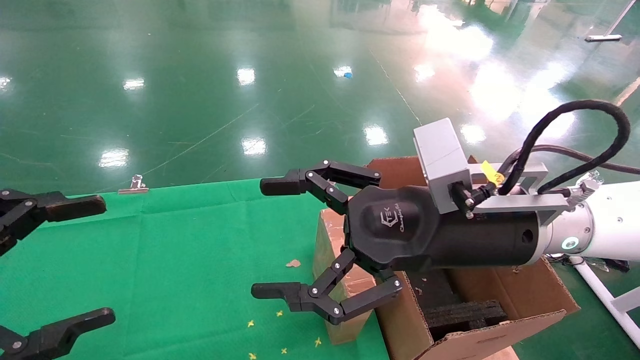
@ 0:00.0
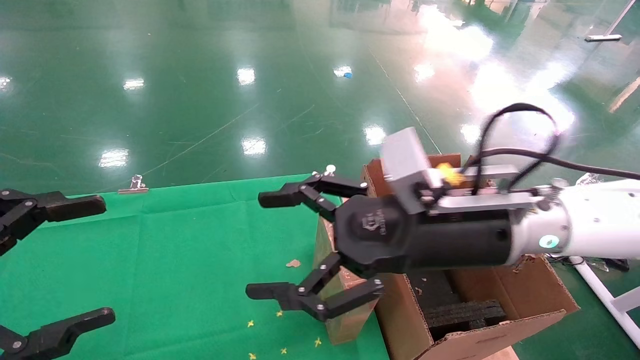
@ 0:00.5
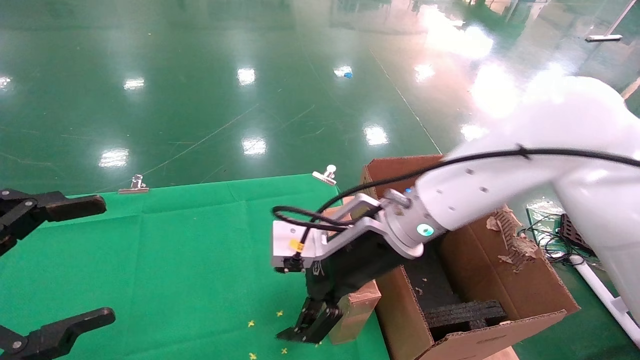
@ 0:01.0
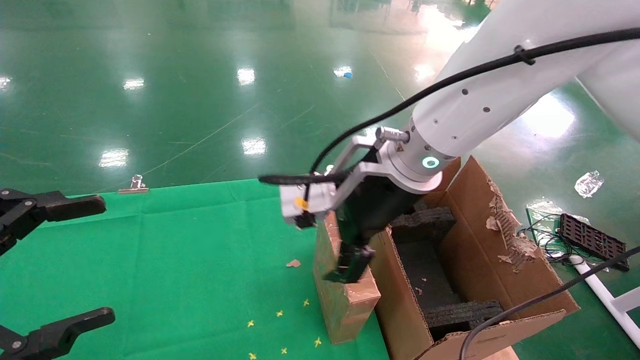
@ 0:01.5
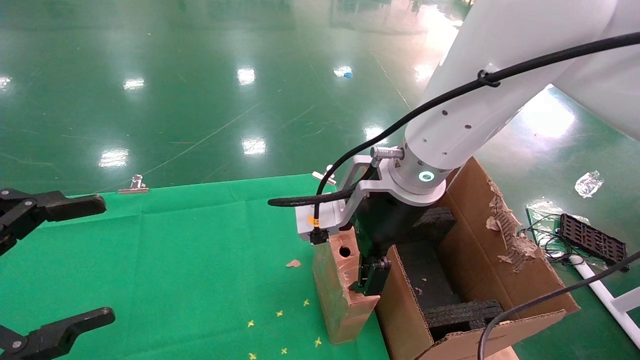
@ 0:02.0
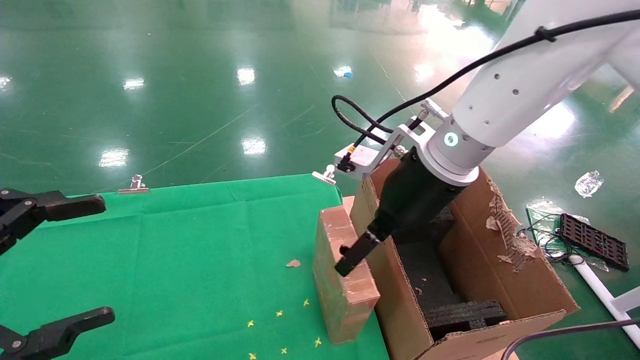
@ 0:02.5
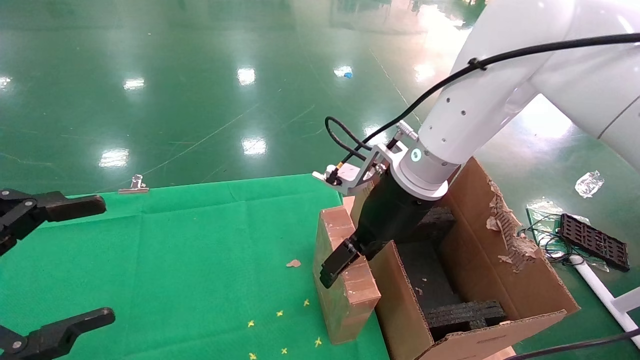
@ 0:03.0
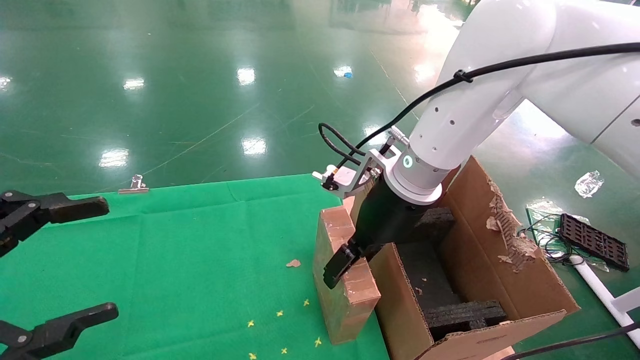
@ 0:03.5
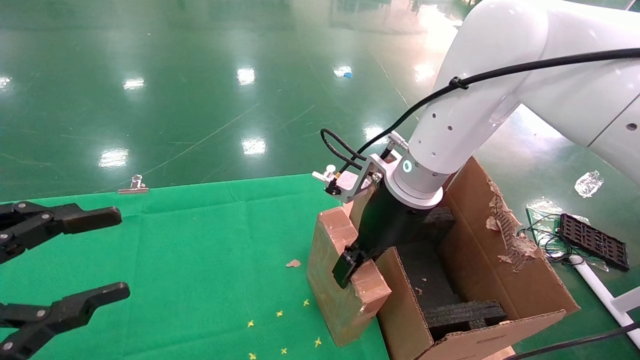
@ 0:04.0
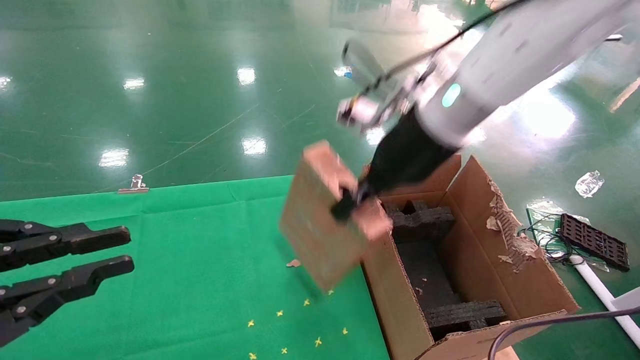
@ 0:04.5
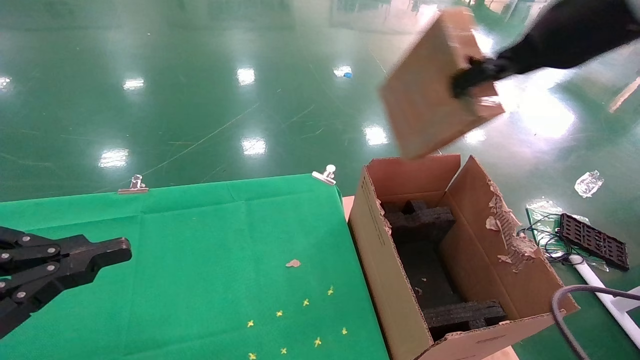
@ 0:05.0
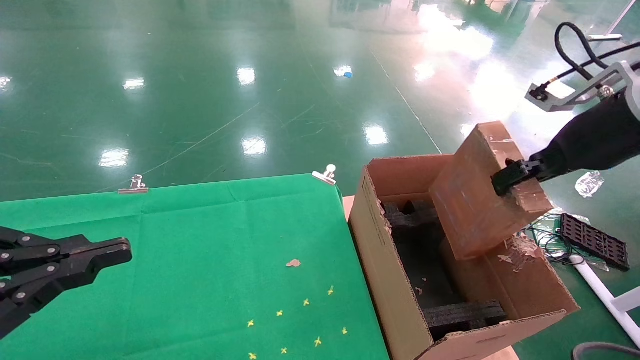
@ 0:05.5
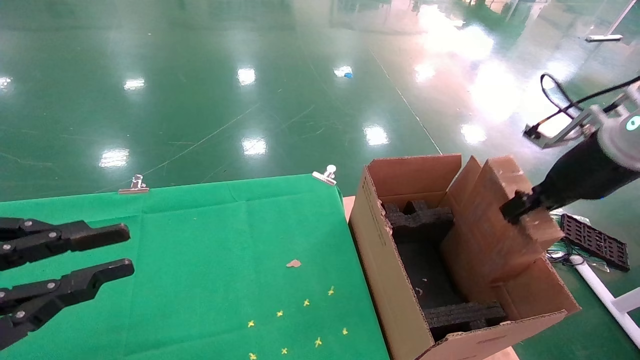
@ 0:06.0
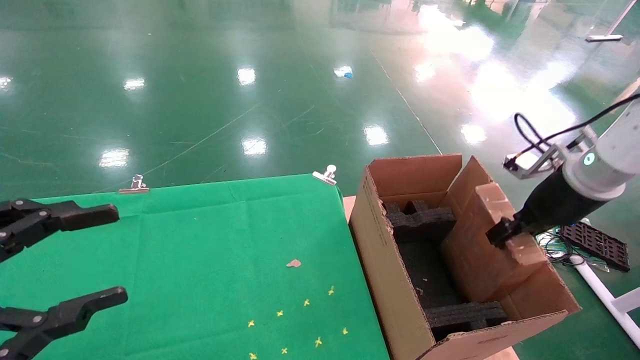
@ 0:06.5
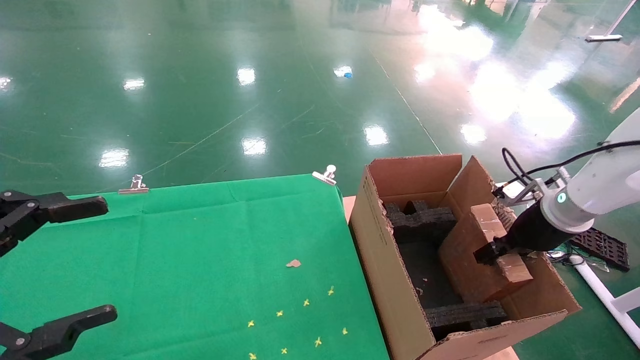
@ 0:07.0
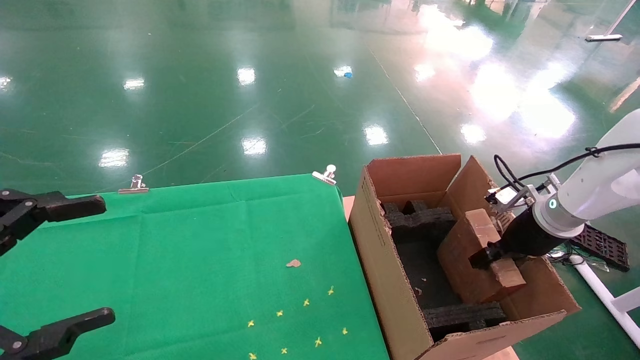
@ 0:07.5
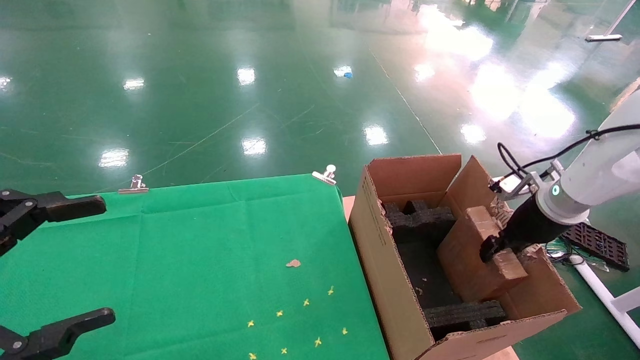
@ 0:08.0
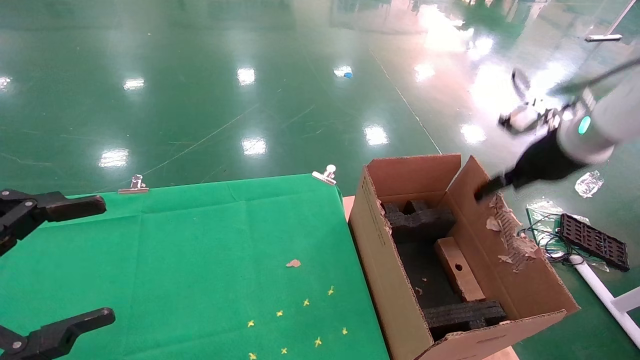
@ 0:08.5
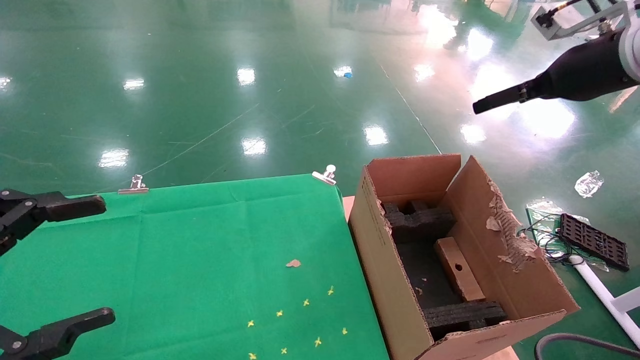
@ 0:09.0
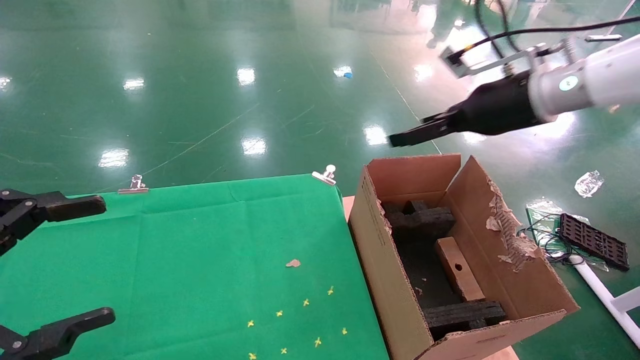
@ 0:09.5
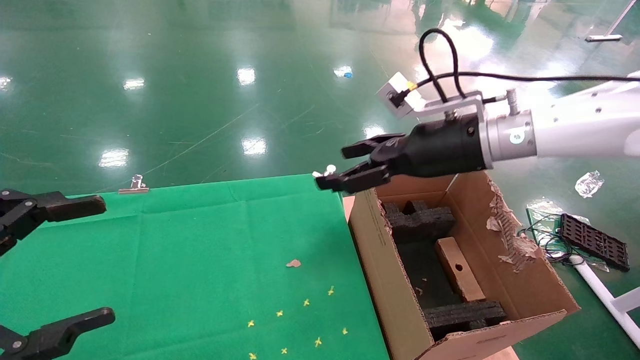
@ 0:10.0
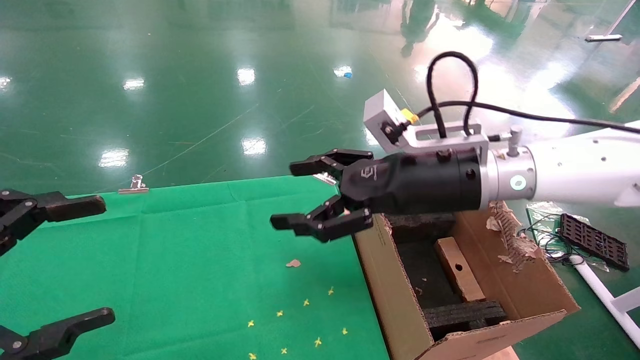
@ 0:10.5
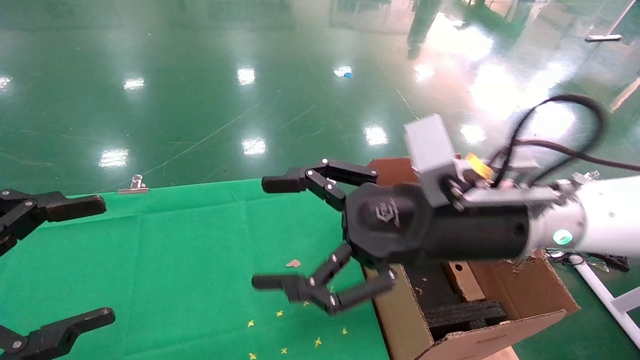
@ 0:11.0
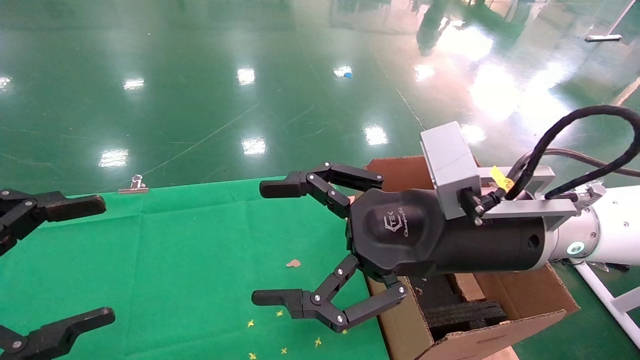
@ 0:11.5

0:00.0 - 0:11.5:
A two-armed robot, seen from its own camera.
Task of the whole recording: using a robotic arm to pick up a cardboard box and palace it the carton.
Step, 0:00.5 - 0:04.0: Pick up the mouse and the power cord paper box.
Step, 0:04.5 - 0:08.0: Place the mouse and the power cord paper box into the container.
0:00.0 - 0:02.0: The right gripper moves forward and to the left, some 10 cm.
0:02.0 - 0:04.0: The right gripper moves approximately 5 cm, and closes up.
0:04.0 - 0:06.0: The right gripper moves to the right, approximately 25 cm, and closes its fingers; the left gripper closes its fingers.
0:06.0 - 0:07.5: The right gripper is displaced downward and forward by roughly 15 cm. The left gripper opens.
0:07.5 - 0:09.5: The right gripper heads upward and to the left, covering some 20 cm, and opens.
0:09.5 - 0:11.5: The right gripper shifts about 20 cm to the left, backward and downward.

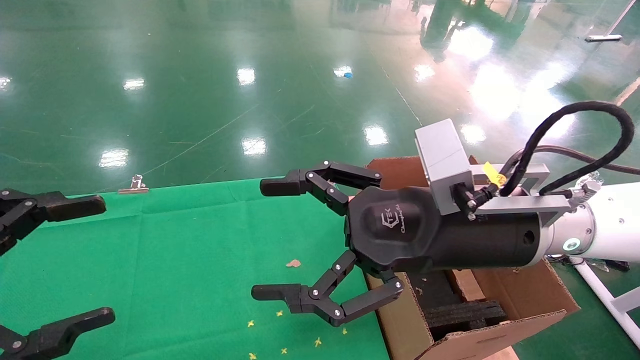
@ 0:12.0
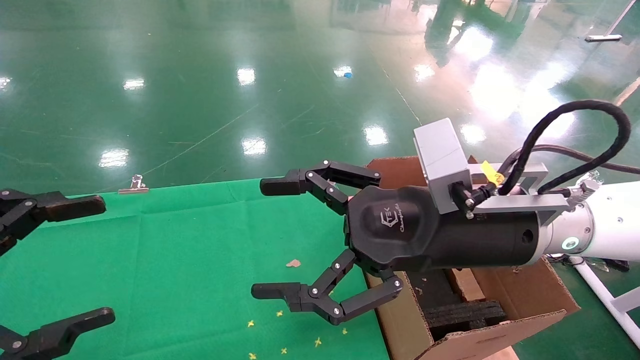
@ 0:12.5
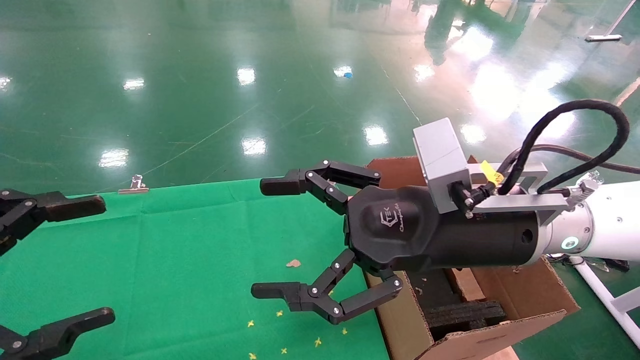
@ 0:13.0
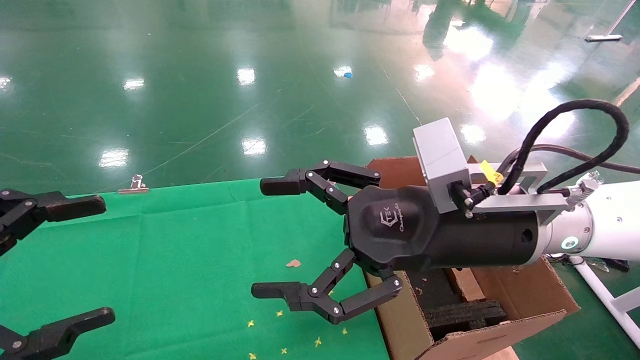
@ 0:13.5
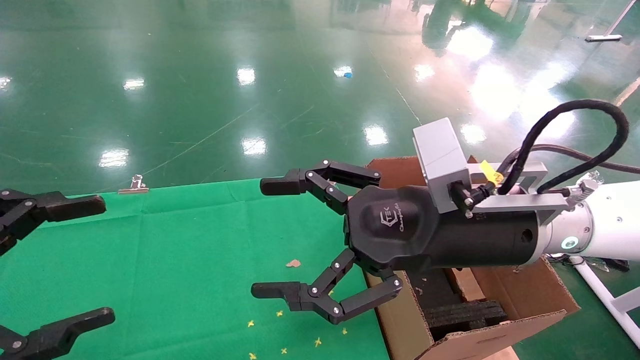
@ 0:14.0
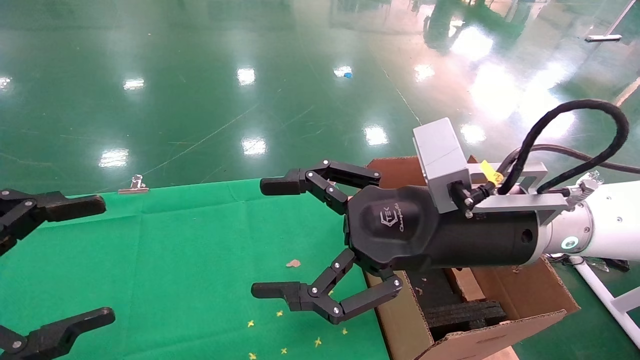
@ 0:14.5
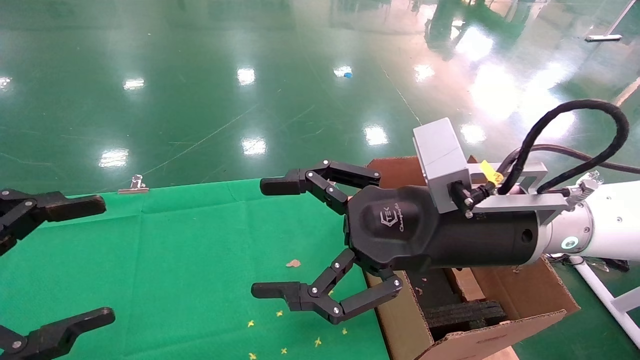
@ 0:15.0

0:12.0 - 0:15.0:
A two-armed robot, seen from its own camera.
Task of the whole recording: using a robotic arm to pick up a cardboard box and palace it the carton.
0:12.0 - 0:15.0: The two grippers keep their place.
